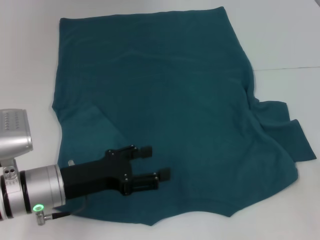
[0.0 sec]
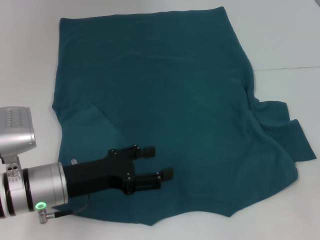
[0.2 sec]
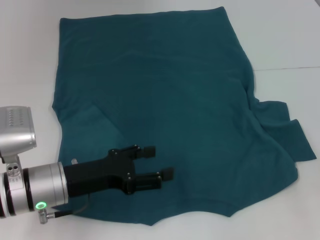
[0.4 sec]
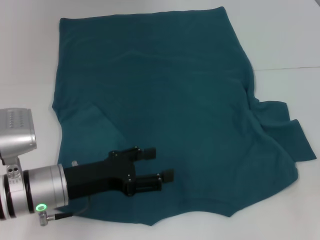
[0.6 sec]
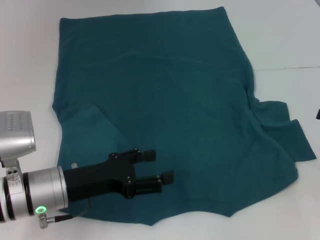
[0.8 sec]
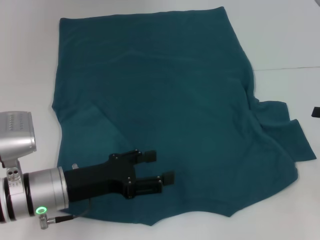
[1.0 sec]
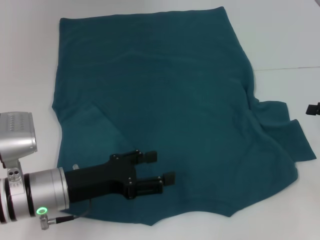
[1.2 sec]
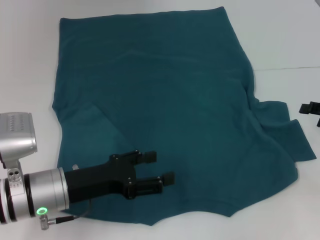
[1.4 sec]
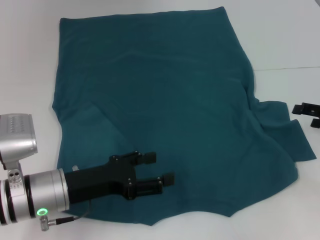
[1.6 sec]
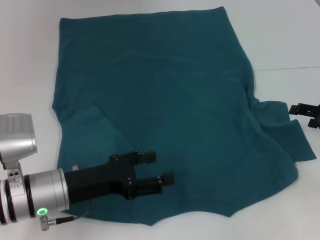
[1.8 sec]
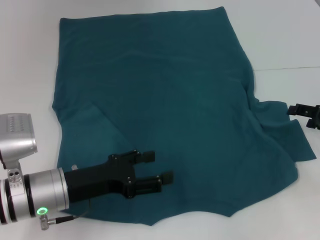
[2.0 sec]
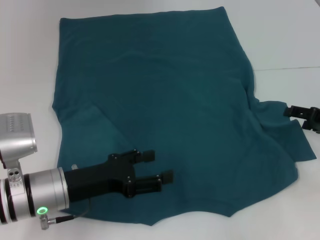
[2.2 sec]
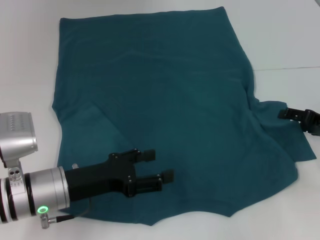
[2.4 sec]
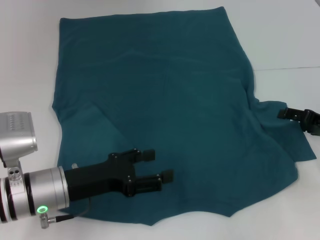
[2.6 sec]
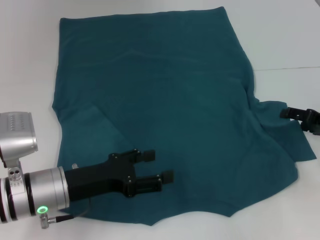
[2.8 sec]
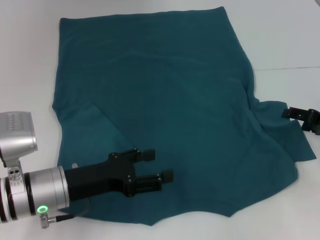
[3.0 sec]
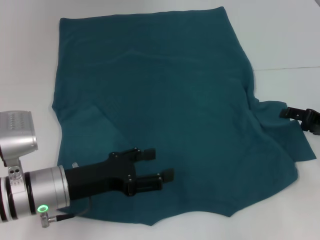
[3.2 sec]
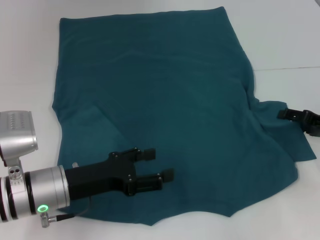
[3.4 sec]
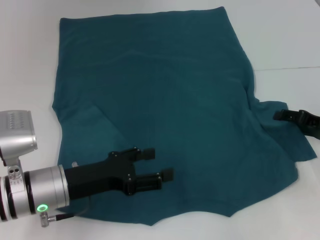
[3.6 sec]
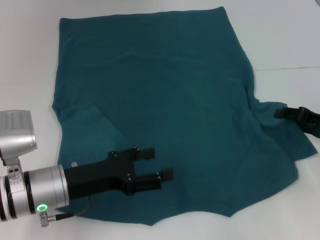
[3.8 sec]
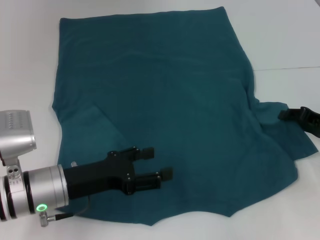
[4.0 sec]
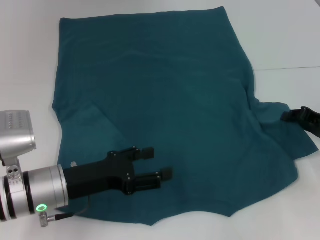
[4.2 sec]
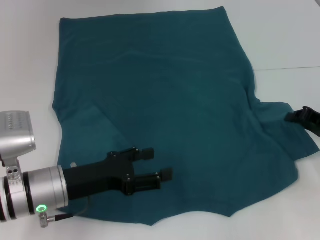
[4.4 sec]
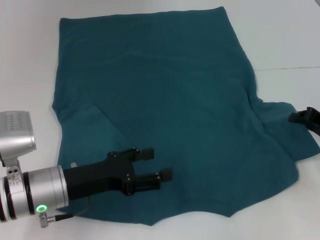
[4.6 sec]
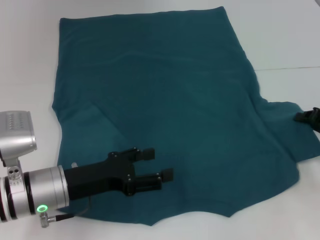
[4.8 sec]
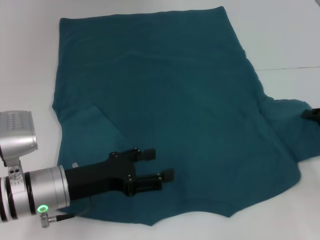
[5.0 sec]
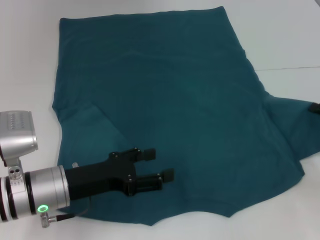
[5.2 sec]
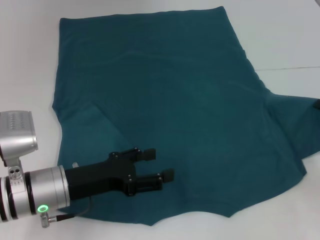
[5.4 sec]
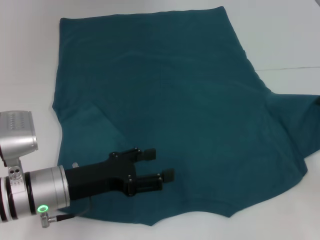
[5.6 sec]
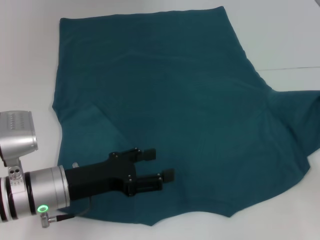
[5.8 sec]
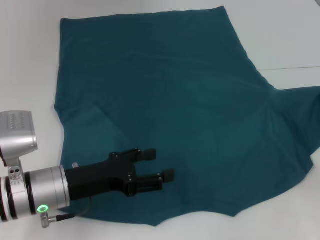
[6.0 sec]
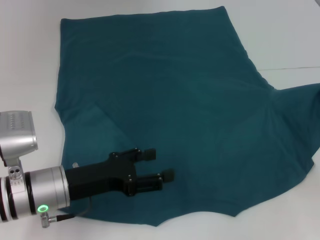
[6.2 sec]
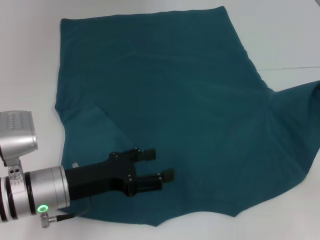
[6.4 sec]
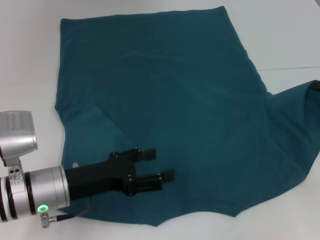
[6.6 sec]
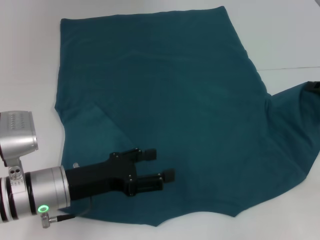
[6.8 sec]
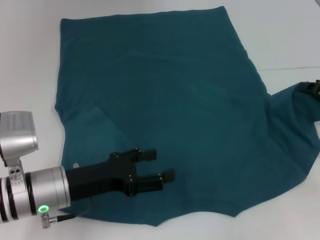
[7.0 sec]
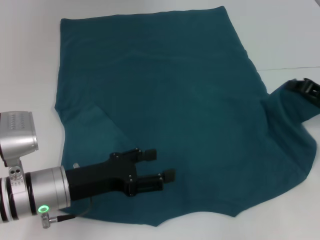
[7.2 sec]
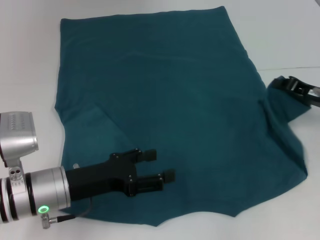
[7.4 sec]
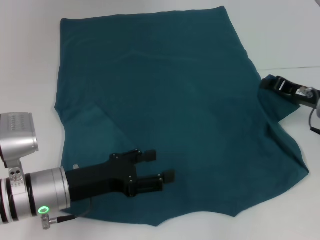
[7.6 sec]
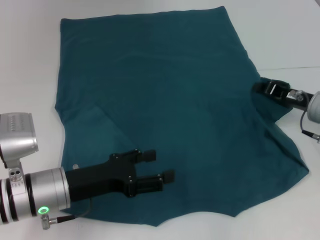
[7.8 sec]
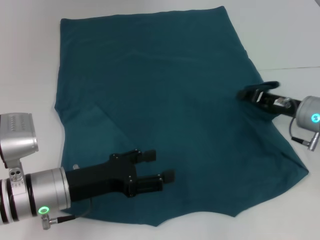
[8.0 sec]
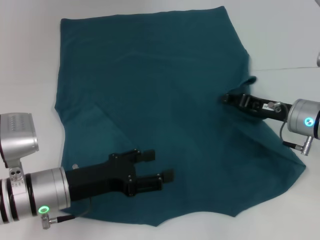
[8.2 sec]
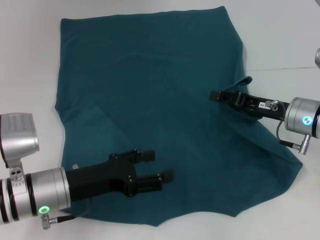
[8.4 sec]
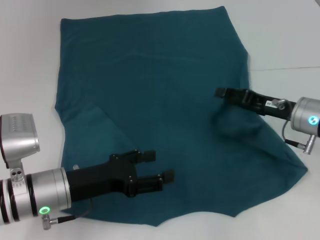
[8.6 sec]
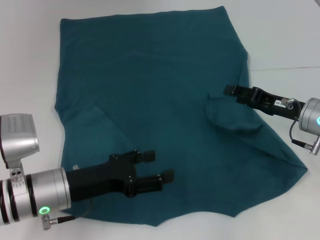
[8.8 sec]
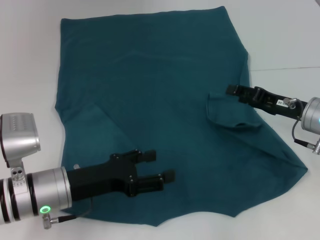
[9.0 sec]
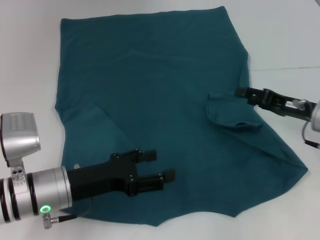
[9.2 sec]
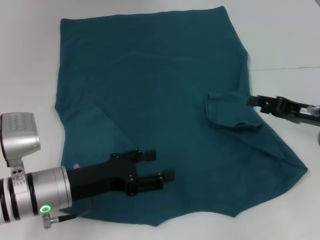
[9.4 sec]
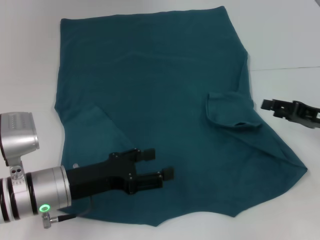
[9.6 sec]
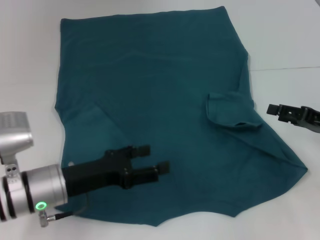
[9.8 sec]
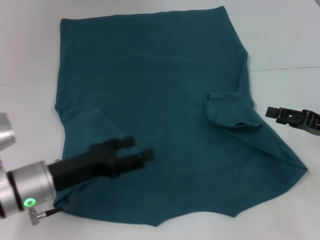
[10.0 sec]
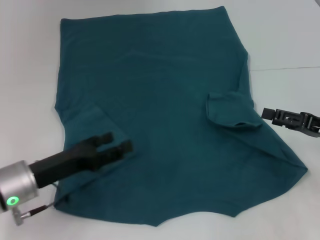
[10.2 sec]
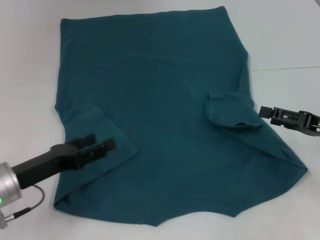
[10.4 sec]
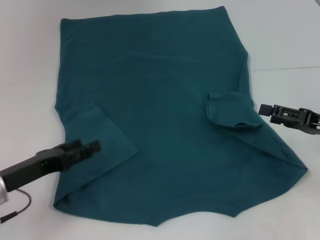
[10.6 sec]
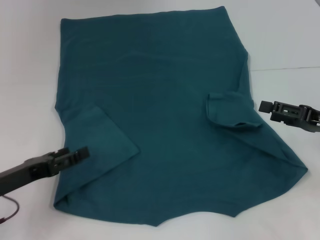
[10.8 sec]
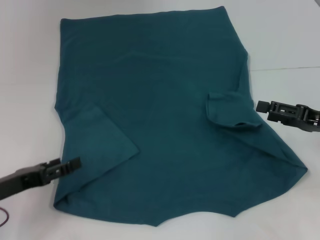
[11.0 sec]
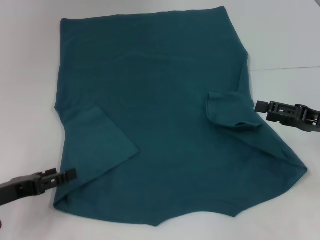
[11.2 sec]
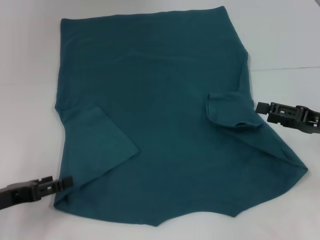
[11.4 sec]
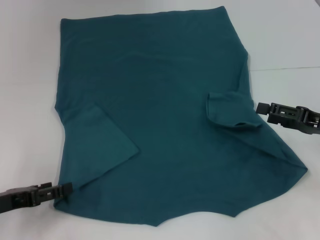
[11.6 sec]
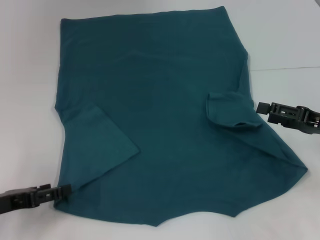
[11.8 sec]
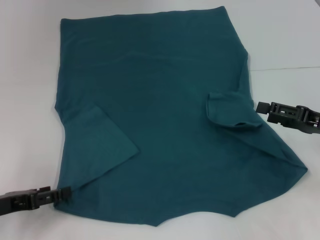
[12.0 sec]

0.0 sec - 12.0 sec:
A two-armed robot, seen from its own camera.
Step, 0.0 sec - 8.6 sec: Fold the bottom right sleeve to the right.
0.0 sec - 1.6 sec: The right gripper is displaced forward by some 5 cm.
1.6 sec - 3.0 sec: The grippers stay close to where they were, moving slightly.
3.0 sec - 4.4 sec: The right gripper closes its fingers.
4.4 sec - 6.0 sec: There are only small adjustments of the grippers.
6.0 sec - 7.6 sec: The right gripper shifts approximately 10 cm to the left.
7.6 sec - 9.0 sec: The right gripper opens.
9.0 sec - 10.4 sec: The left gripper is displaced to the left by approximately 5 cm. Meanwhile the right gripper heads to the right and backward, covering some 10 cm.
10.4 sec - 12.0 sec: The left gripper is displaced to the left by approximately 5 cm.

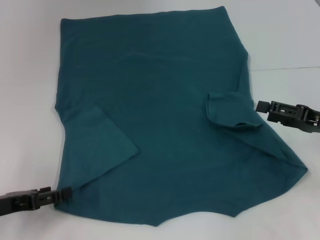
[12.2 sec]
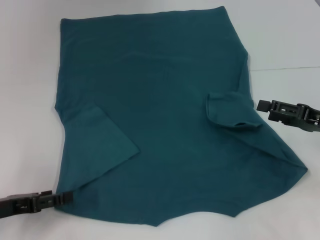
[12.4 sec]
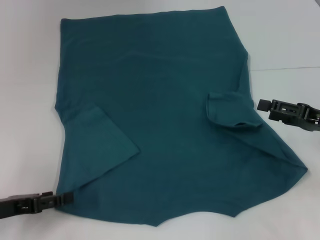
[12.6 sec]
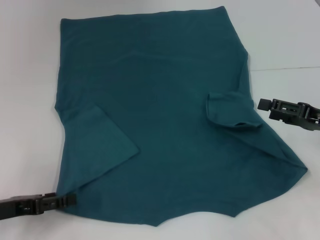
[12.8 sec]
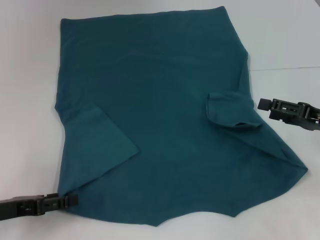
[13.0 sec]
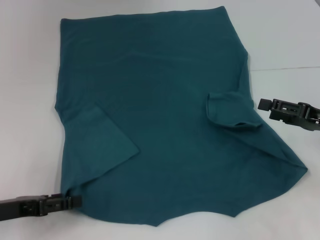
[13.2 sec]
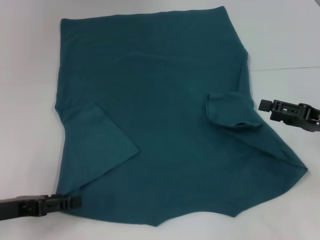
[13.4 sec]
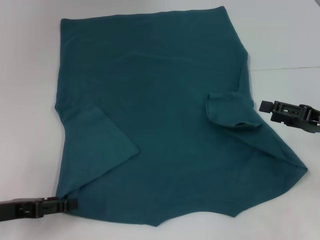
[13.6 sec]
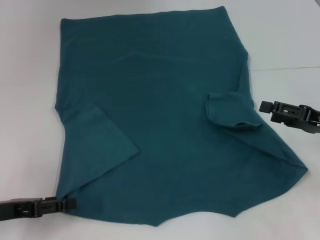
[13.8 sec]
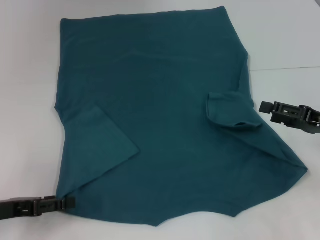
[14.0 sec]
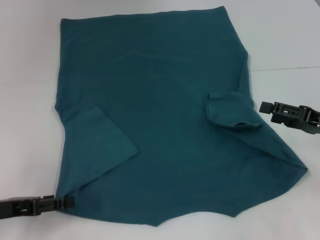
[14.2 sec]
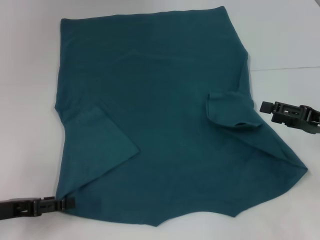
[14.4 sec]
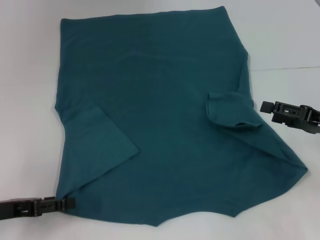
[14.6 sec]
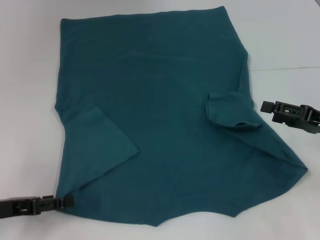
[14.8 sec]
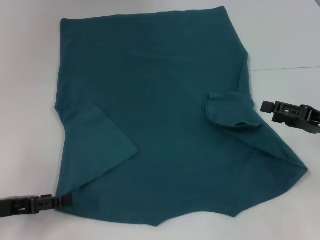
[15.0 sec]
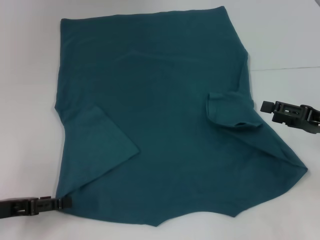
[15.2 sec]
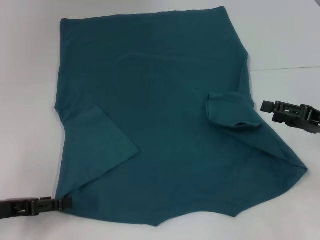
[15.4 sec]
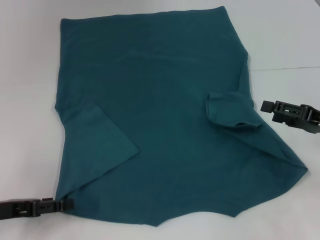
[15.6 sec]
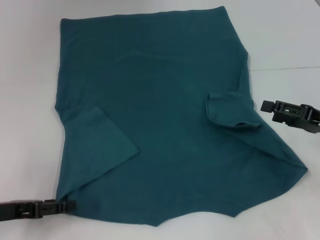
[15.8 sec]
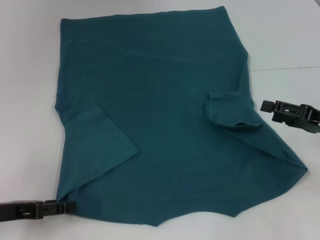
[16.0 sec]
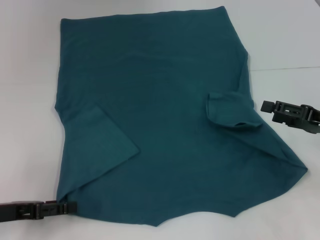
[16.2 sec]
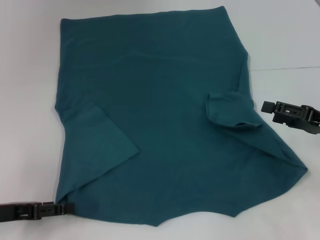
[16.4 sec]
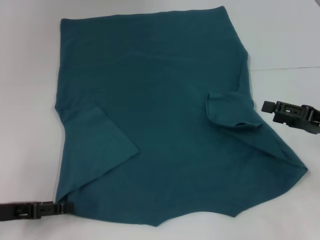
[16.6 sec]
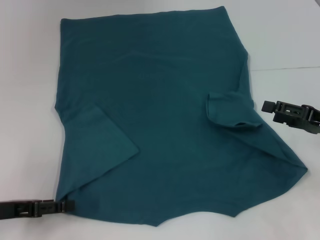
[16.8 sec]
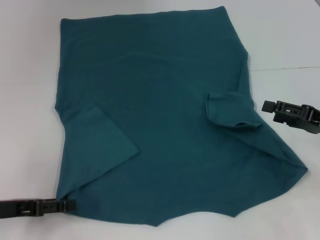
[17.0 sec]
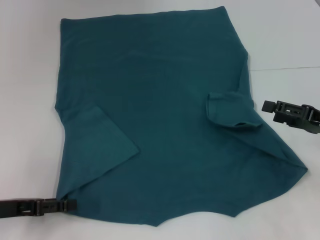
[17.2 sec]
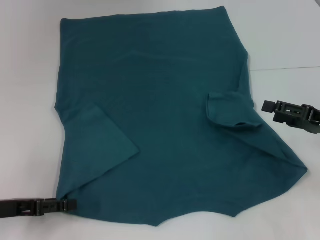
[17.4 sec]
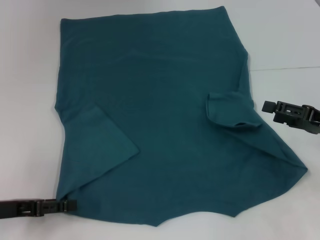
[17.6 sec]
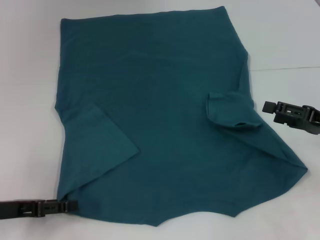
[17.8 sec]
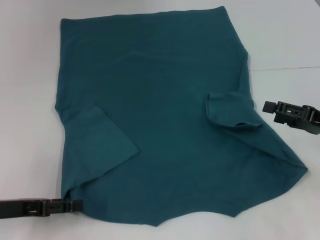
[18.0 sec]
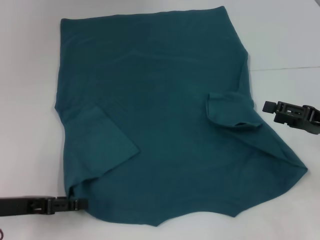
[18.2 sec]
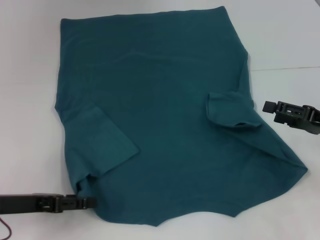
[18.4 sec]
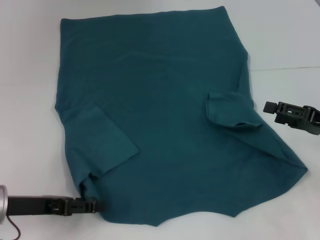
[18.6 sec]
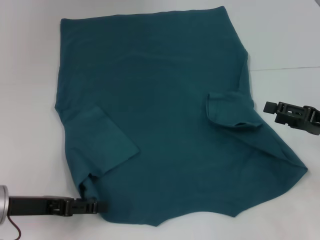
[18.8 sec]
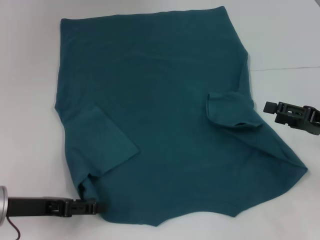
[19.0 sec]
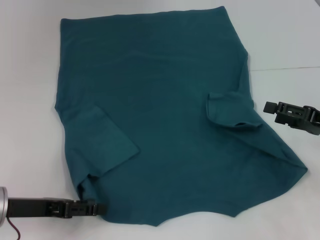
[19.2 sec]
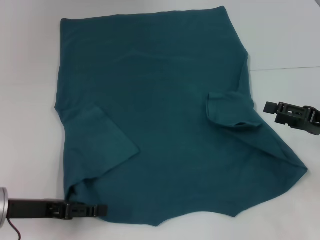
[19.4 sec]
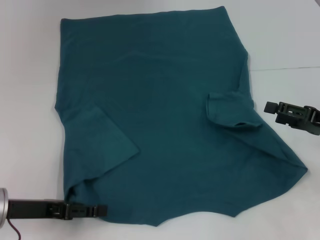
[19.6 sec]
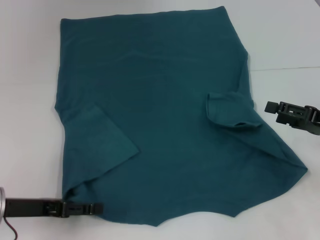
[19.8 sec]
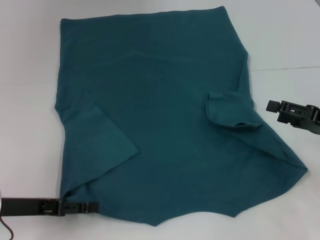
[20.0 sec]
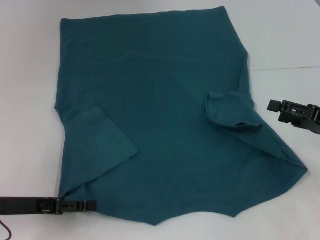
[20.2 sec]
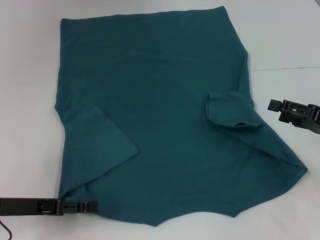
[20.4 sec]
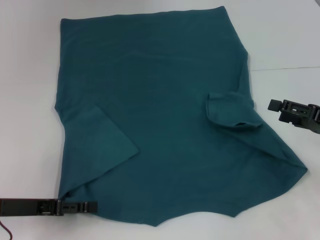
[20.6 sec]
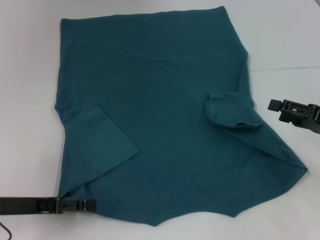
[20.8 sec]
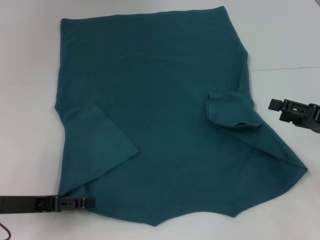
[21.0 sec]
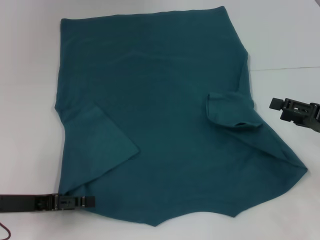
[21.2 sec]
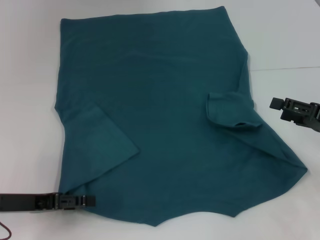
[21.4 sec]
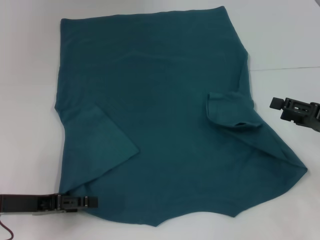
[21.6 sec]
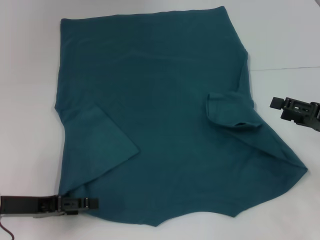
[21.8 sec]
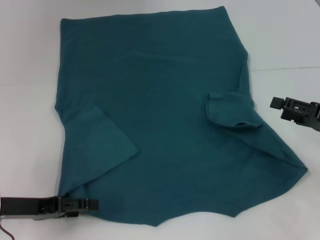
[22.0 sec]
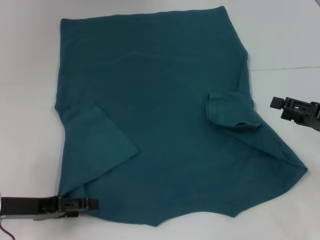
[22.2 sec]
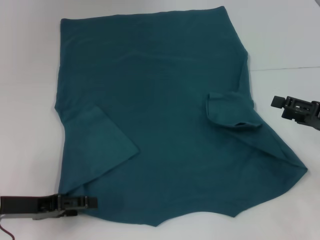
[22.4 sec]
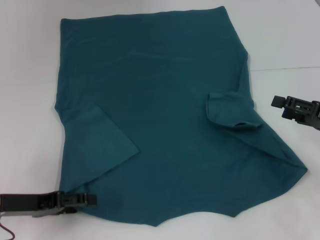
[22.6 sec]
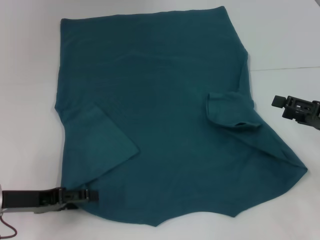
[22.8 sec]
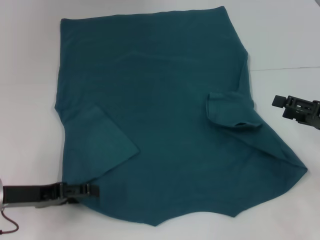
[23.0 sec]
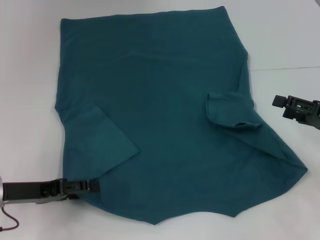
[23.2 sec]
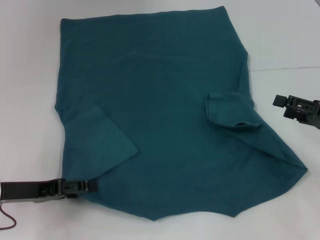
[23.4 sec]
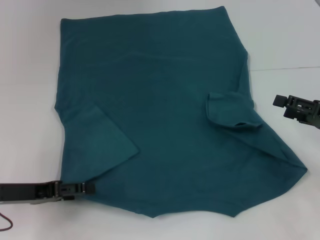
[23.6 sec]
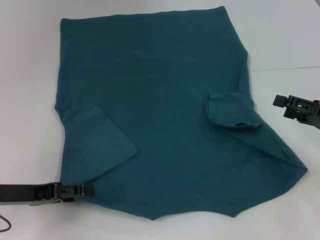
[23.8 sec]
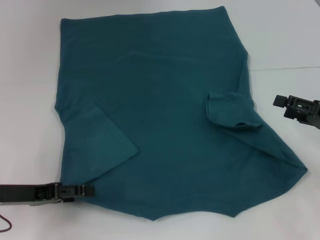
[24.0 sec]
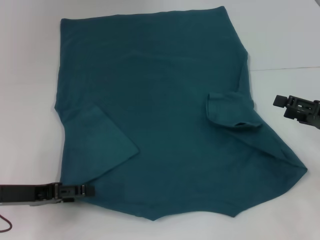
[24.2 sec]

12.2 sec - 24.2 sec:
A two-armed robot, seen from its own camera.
12.2 sec - 13.8 sec: The grippers move only a little.
13.8 sec - 16.6 sec: Neither gripper changes place.
16.6 sec - 22.6 sec: The grippers stay close to where they were, moving slightly.
22.6 sec - 24.2 sec: Neither gripper changes place.
